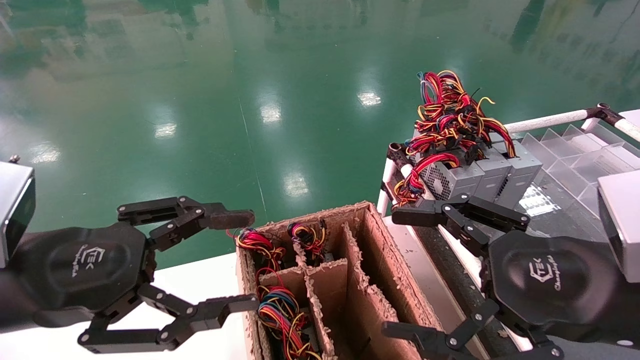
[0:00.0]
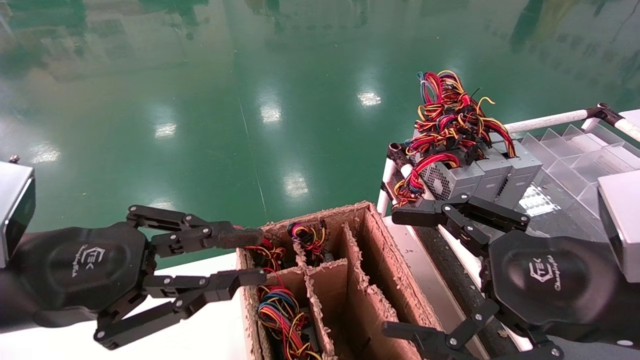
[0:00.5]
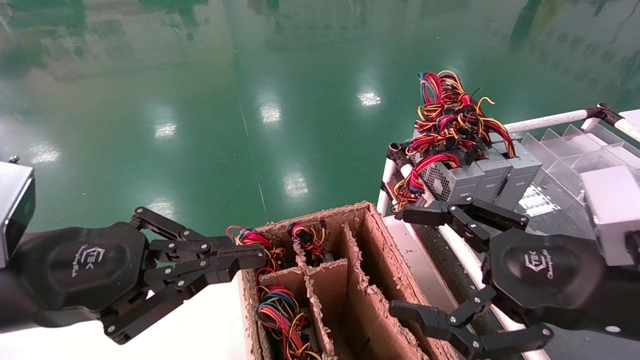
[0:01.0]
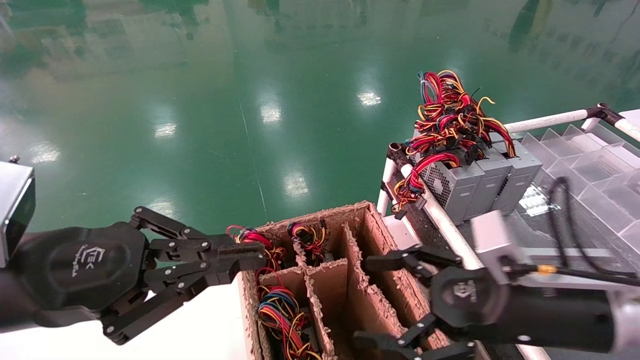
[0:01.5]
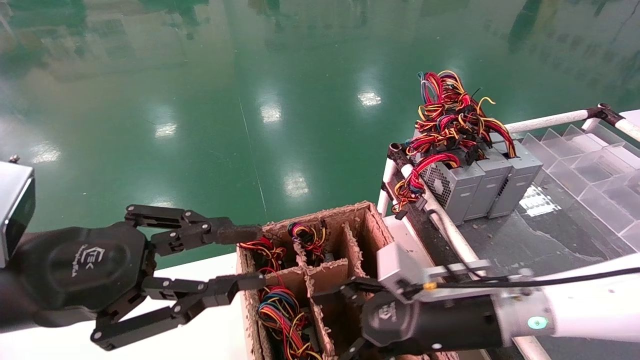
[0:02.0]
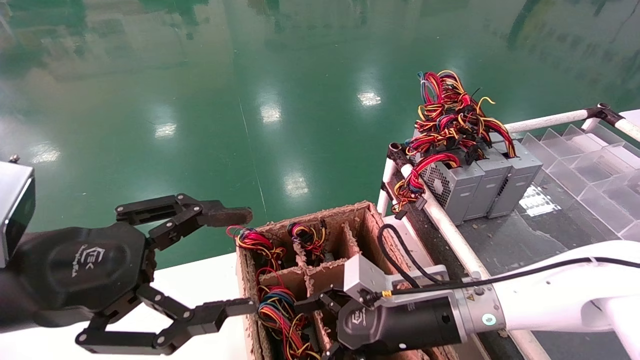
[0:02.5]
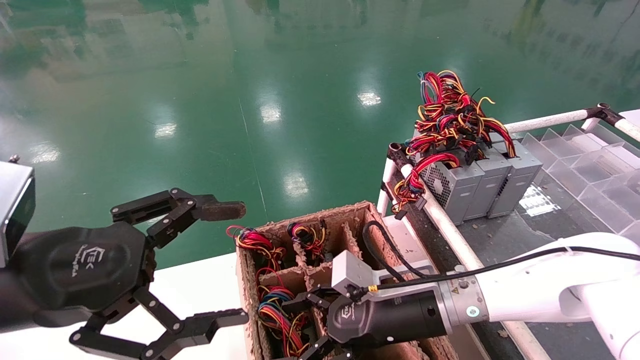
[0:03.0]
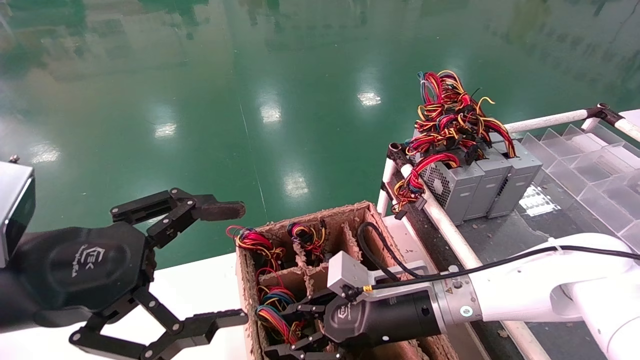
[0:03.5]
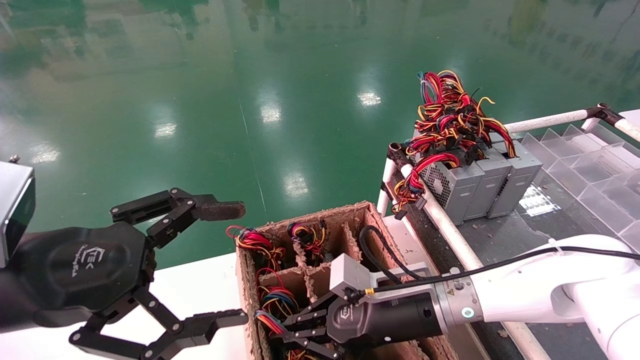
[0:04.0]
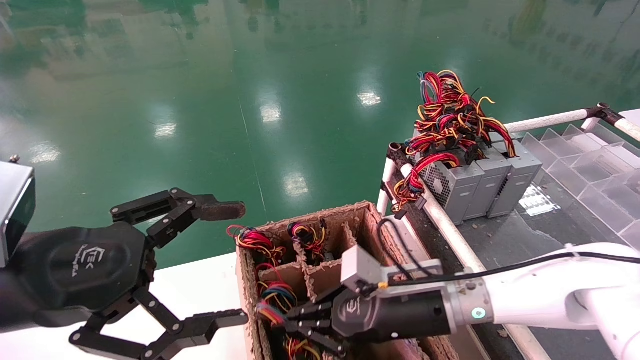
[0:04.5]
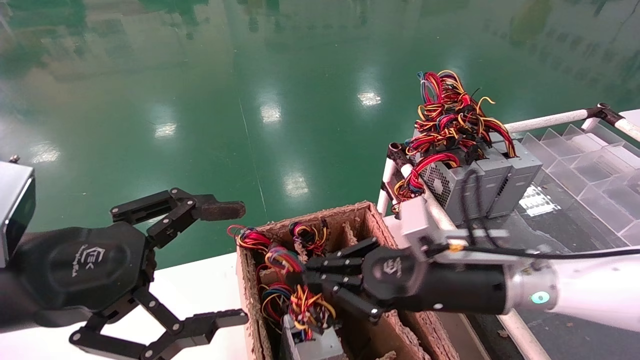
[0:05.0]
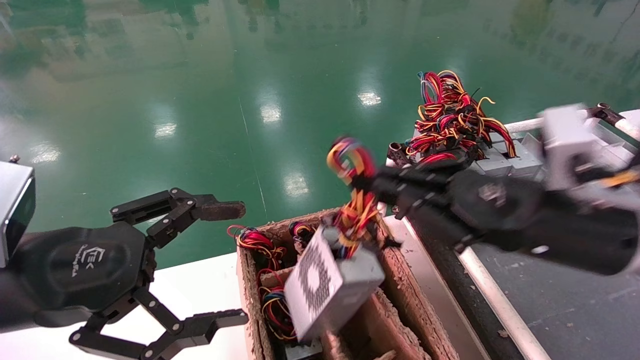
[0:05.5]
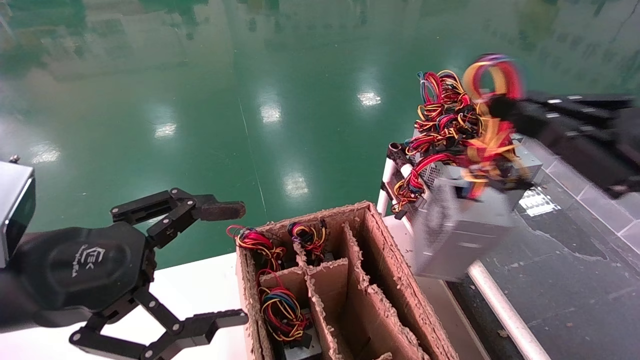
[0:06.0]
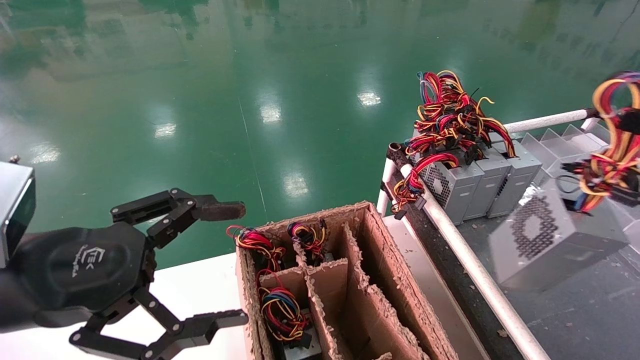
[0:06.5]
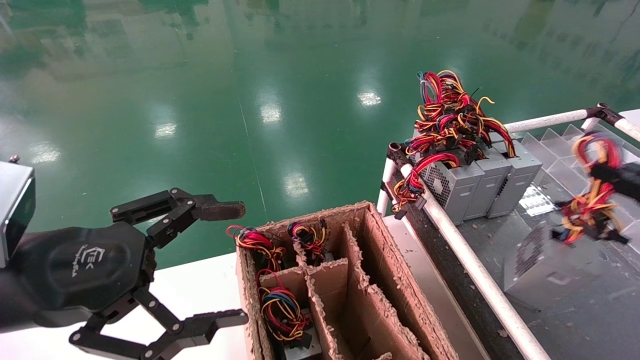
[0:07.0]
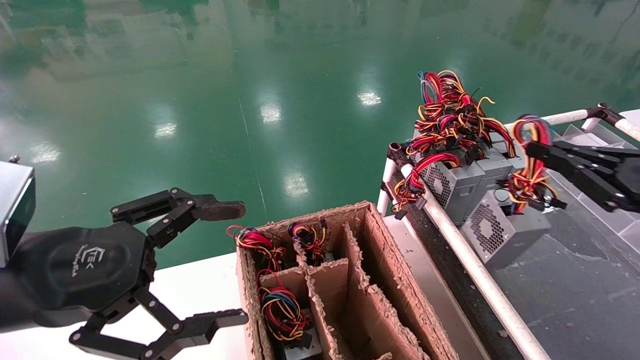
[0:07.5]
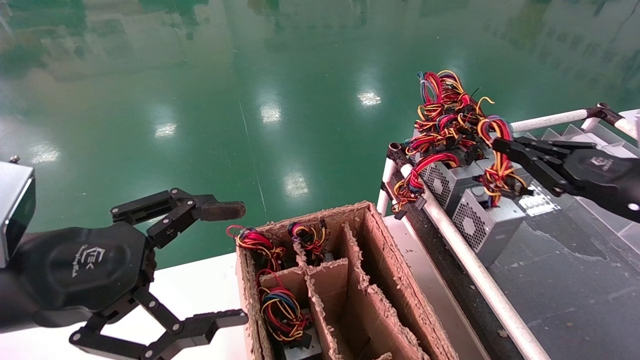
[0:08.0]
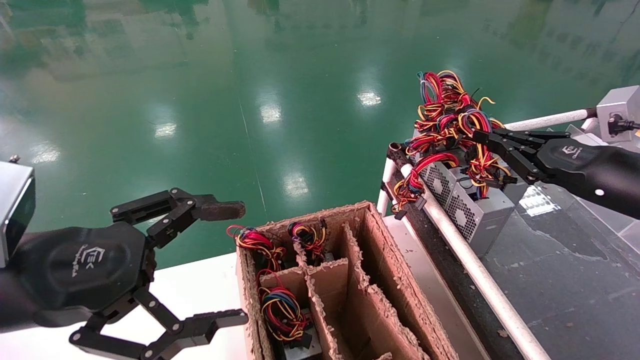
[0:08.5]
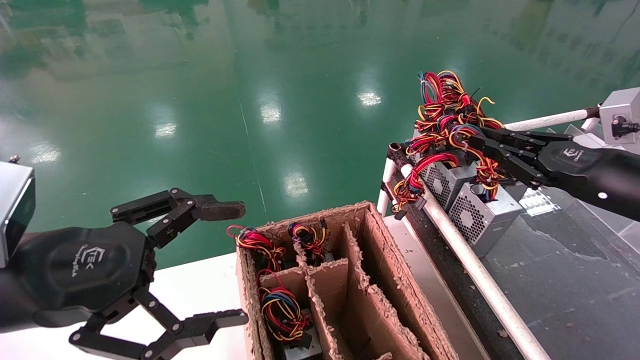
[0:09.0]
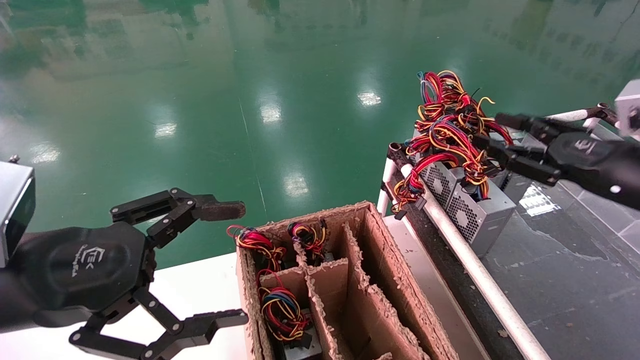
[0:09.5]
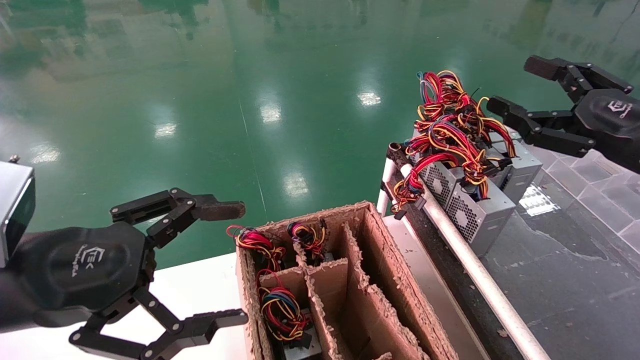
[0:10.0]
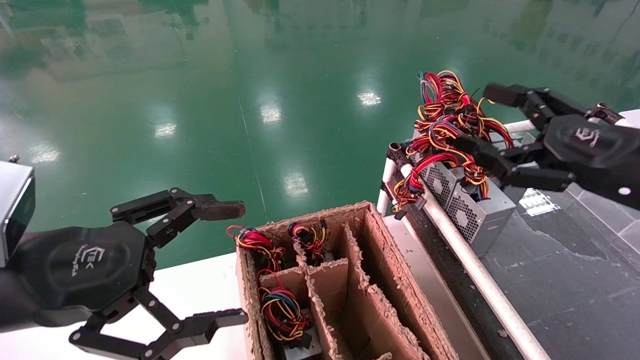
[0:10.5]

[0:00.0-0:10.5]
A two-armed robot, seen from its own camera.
Step, 0:01.5 to 0:04.0: Grab and lift the power supply from the large box.
Step, 0:04.5 to 0:08.5: Place the power supply on the operating table.
0:00.0 to 0:02.0: The right gripper moves forward, downward and to the left, roughly 20 cm. The left gripper closes up.
0:02.0 to 0:04.0: The left gripper opens, while the right gripper shifts by some 5 cm, and closes up.
0:04.0 to 0:06.5: The right gripper moves to the right, upward and backward, about 40 cm.
0:06.5 to 0:08.5: The right gripper heads forward, covering approximately 15 cm.
0:08.5 to 0:10.5: The right gripper shifts by roughly 5 cm, and opens up.

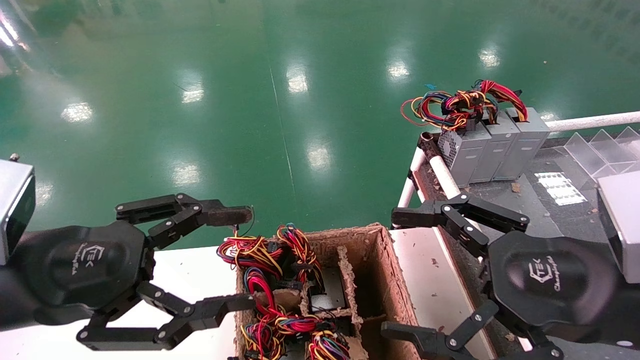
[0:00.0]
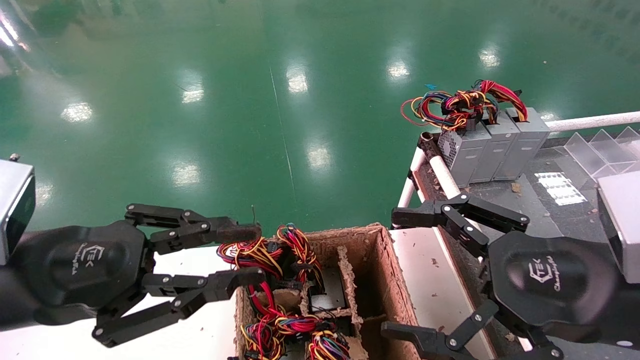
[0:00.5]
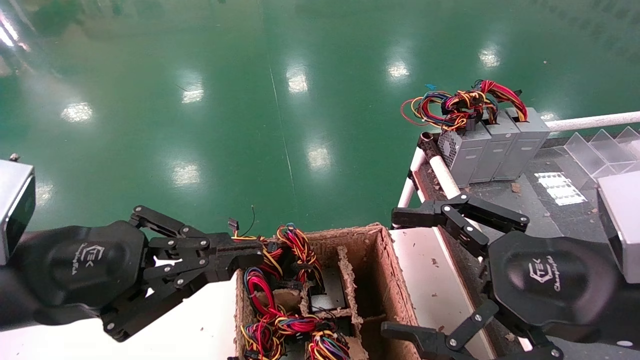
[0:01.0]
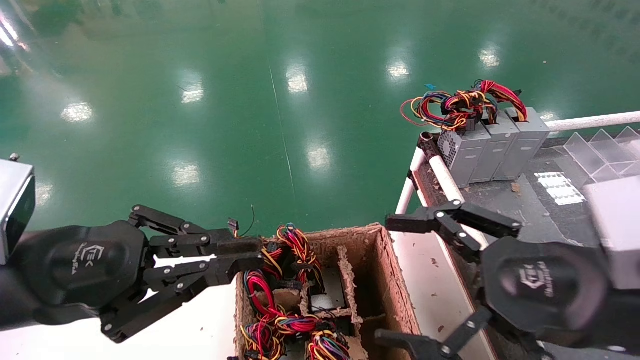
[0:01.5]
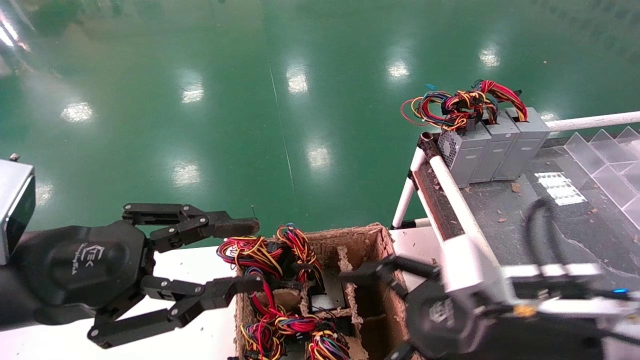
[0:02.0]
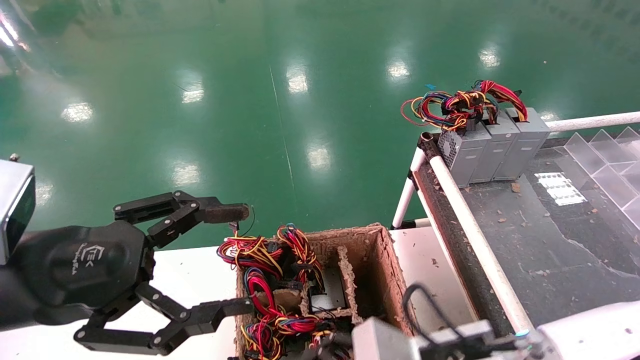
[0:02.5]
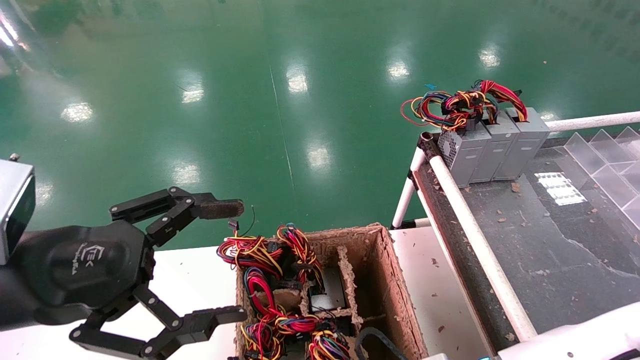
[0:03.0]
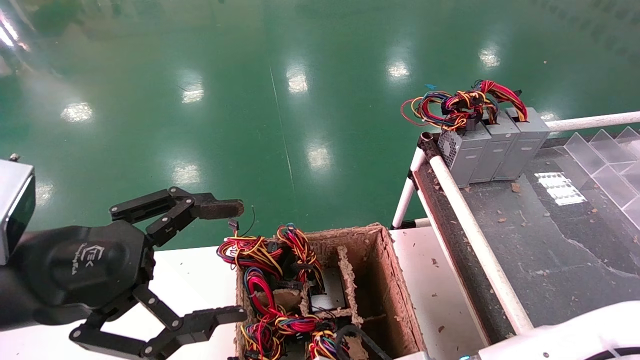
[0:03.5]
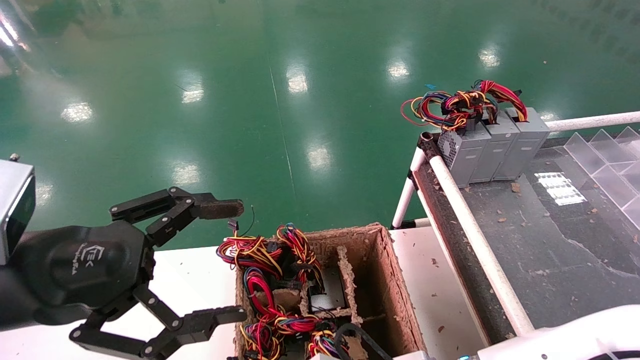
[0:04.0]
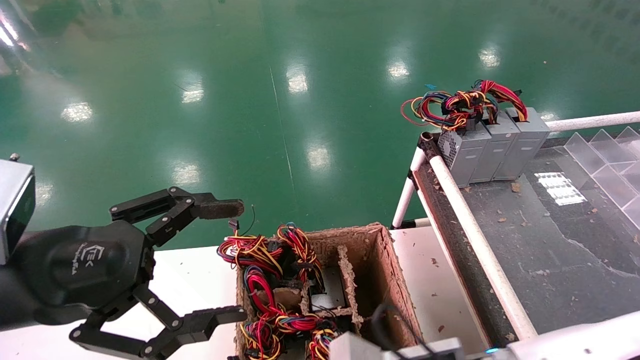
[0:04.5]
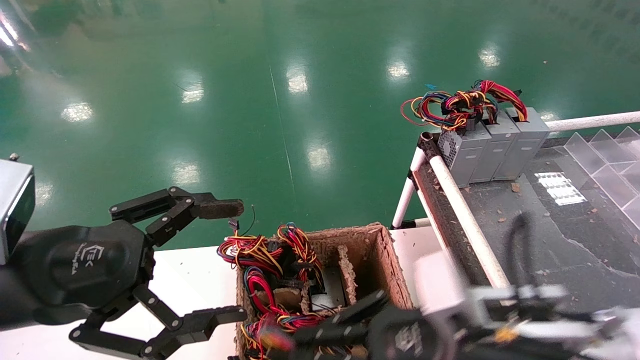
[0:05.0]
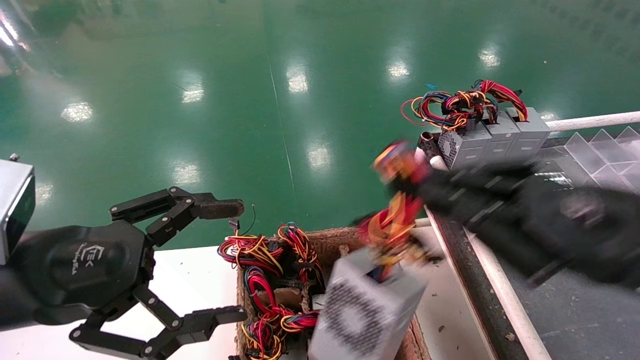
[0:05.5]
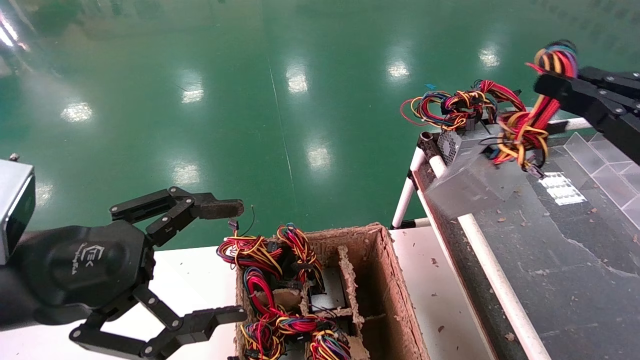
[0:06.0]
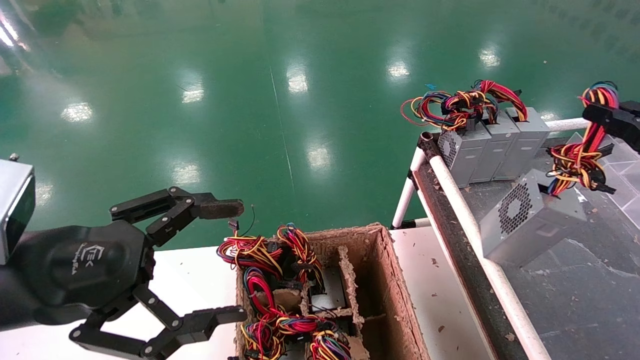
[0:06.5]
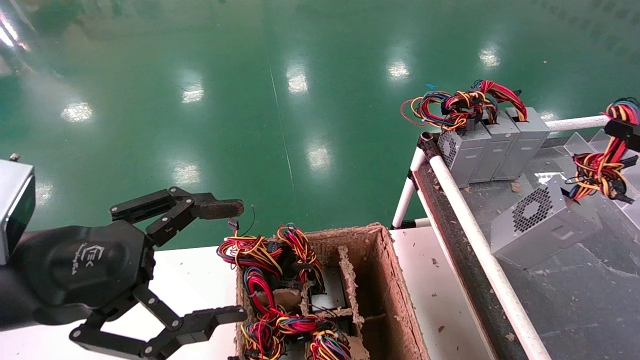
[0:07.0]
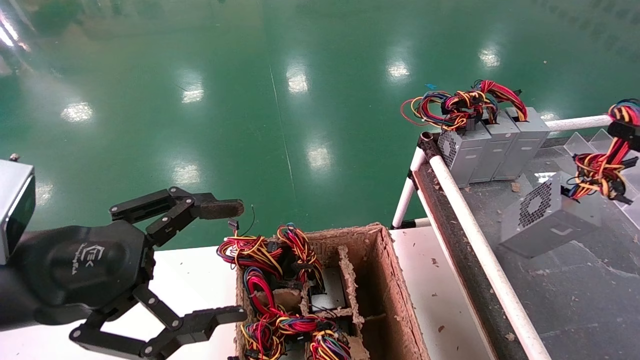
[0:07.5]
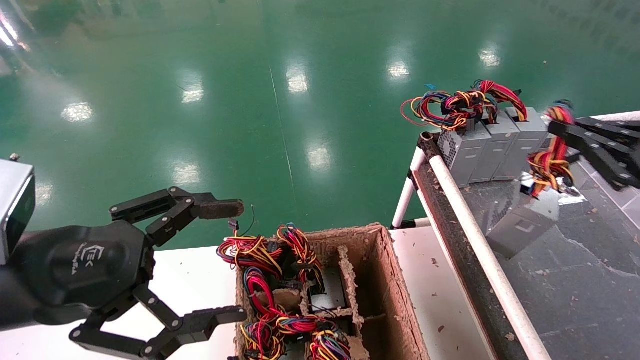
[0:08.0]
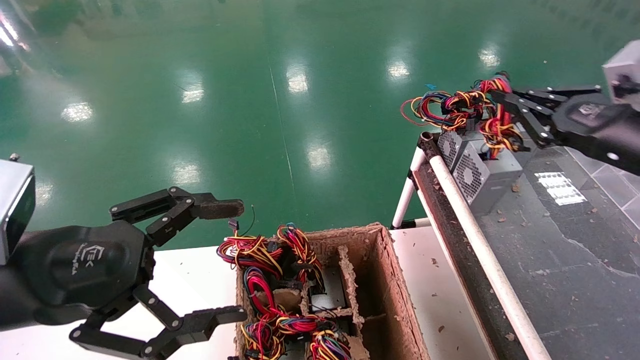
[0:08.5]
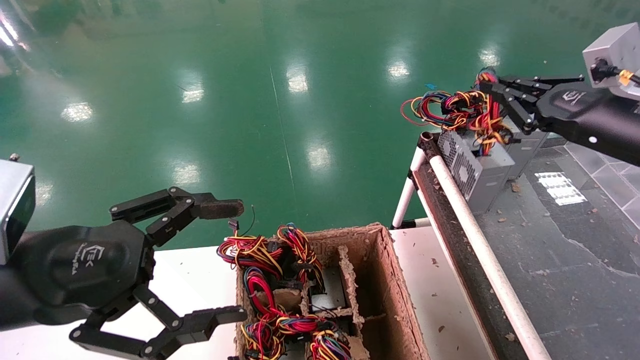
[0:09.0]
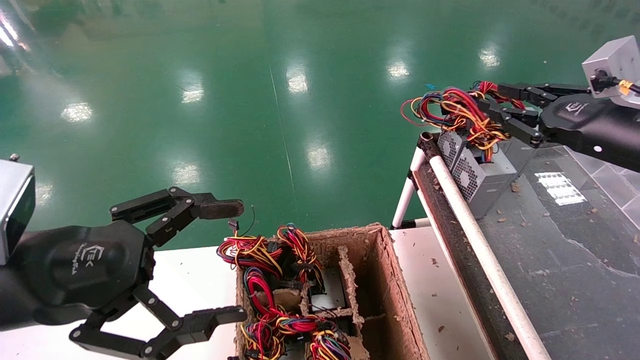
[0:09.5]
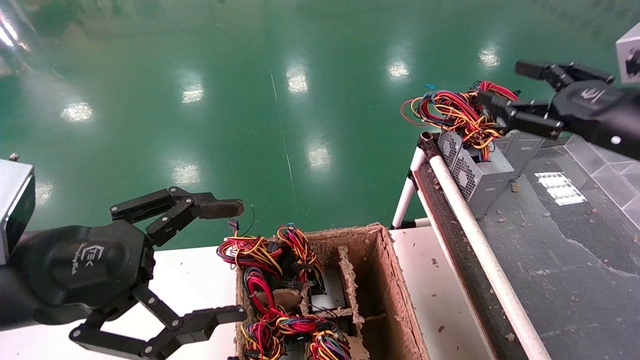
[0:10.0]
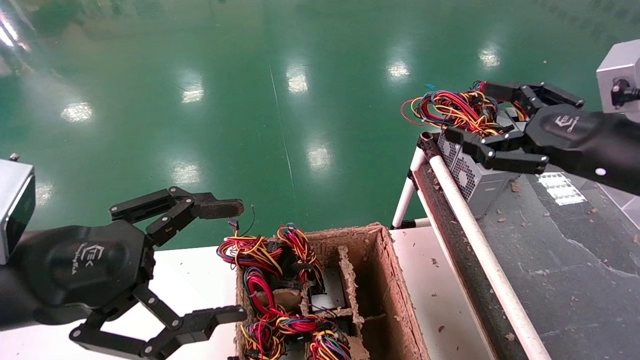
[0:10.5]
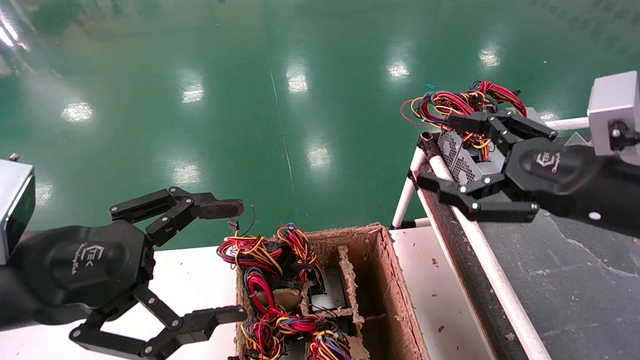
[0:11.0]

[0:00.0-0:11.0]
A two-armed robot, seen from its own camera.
Step, 0:01.5 to 0:04.0: Grab and lift the power supply from the large box.
Step, 0:04.5 to 0:09.5: Place the power supply on the operating table.
0:00.0 to 0:02.0: The left gripper closes its fingers. The right gripper goes some 10 cm downward and to the left.
0:02.0 to 0:03.5: The left gripper opens up, while the right gripper goes about 15 cm downward and to the left, and closes.
0:03.5 to 0:05.5: The right gripper heads upward and to the right, covering approximately 25 cm, and closes up.
0:05.5 to 0:07.5: The right gripper goes some 20 cm to the right.
0:07.5 to 0:09.0: The right gripper goes approximately 15 cm forward, to the left and upward.
0:09.0 to 0:11.0: The right gripper heads backward and to the left, covering roughly 10 cm, and opens its fingers.
